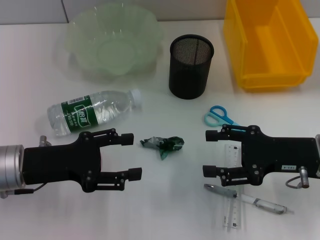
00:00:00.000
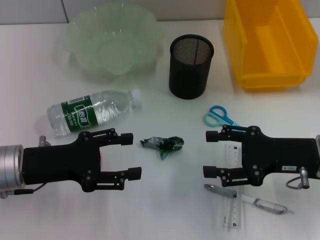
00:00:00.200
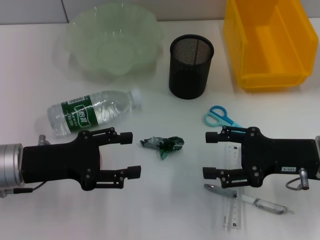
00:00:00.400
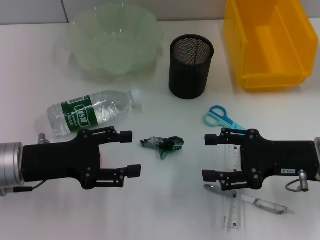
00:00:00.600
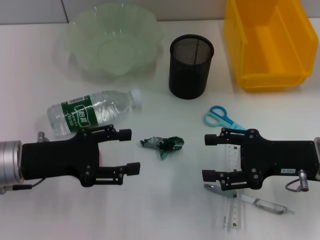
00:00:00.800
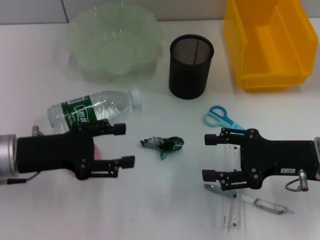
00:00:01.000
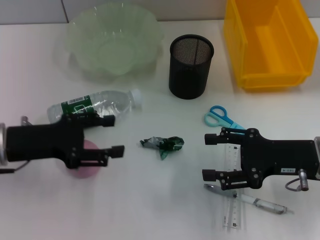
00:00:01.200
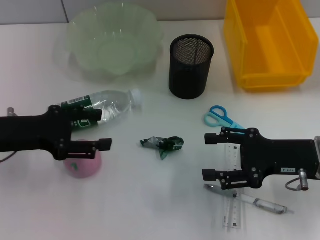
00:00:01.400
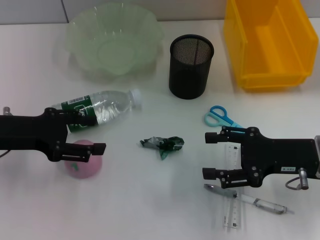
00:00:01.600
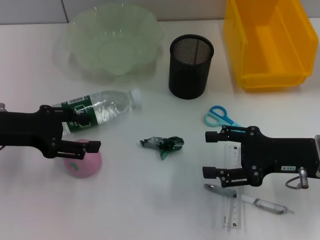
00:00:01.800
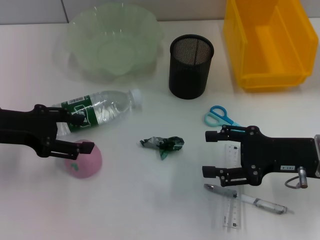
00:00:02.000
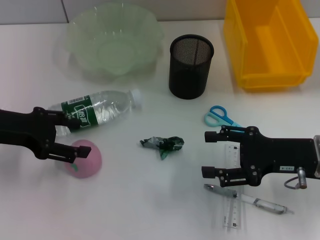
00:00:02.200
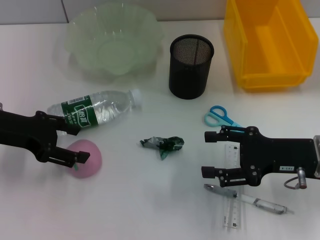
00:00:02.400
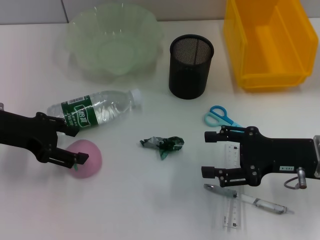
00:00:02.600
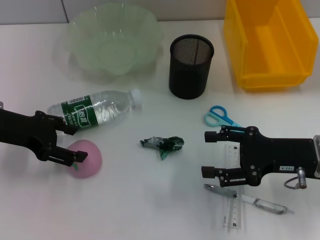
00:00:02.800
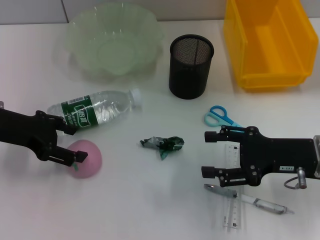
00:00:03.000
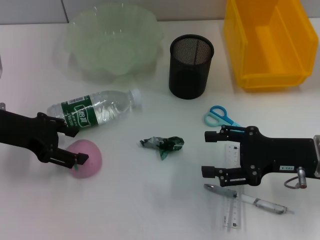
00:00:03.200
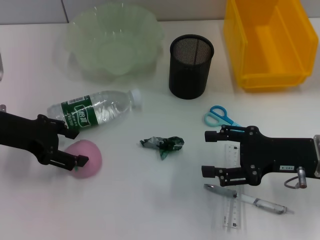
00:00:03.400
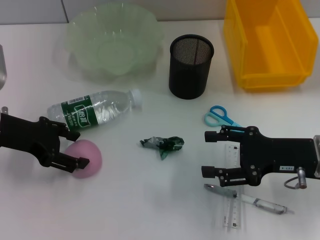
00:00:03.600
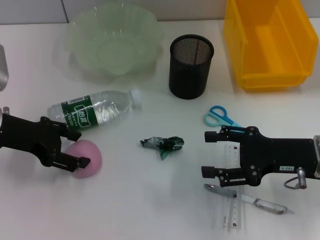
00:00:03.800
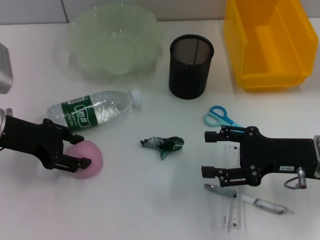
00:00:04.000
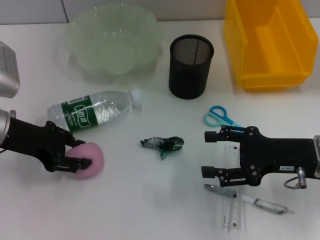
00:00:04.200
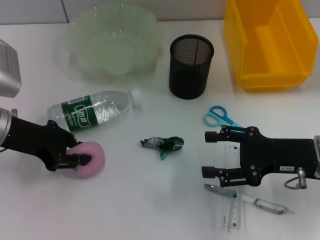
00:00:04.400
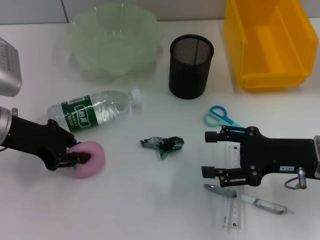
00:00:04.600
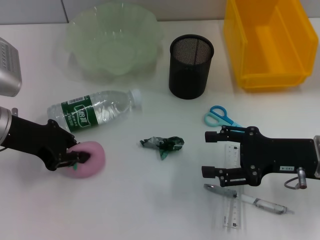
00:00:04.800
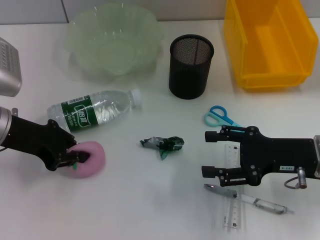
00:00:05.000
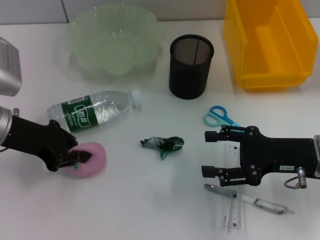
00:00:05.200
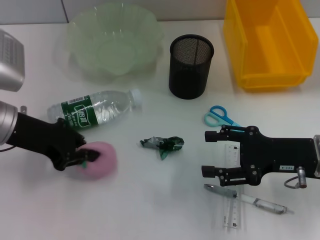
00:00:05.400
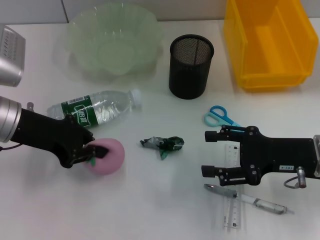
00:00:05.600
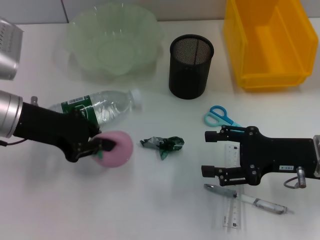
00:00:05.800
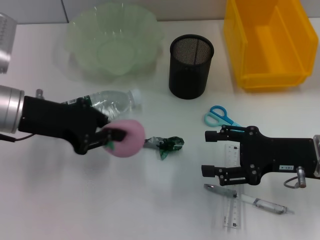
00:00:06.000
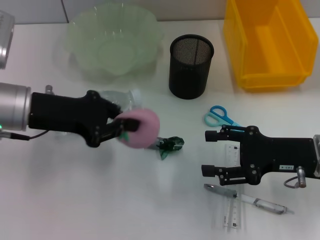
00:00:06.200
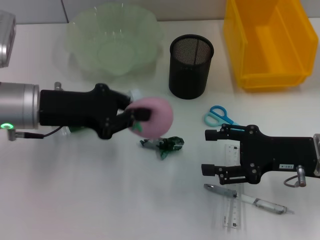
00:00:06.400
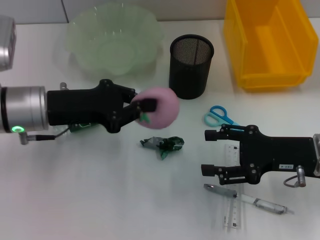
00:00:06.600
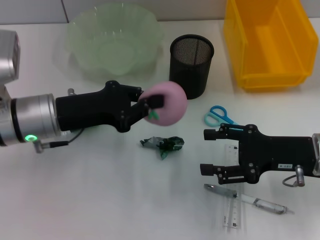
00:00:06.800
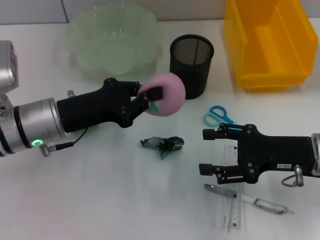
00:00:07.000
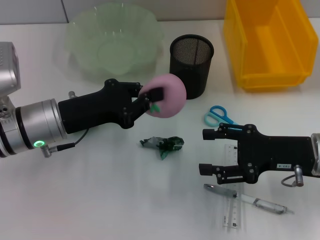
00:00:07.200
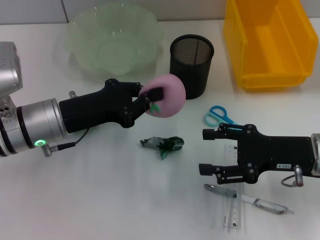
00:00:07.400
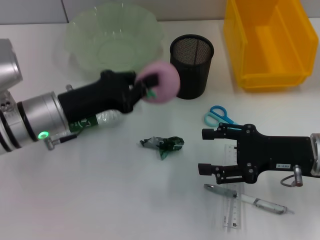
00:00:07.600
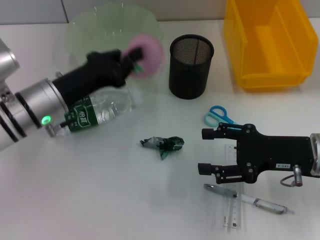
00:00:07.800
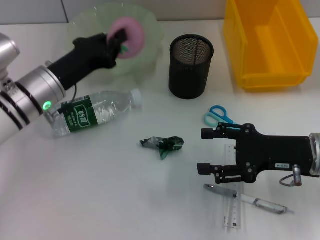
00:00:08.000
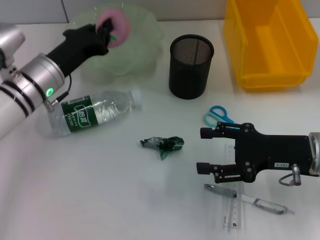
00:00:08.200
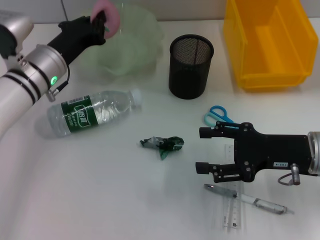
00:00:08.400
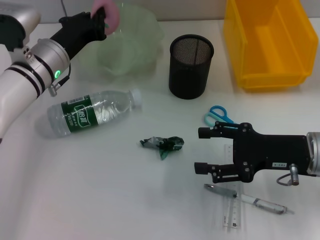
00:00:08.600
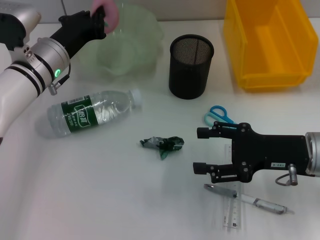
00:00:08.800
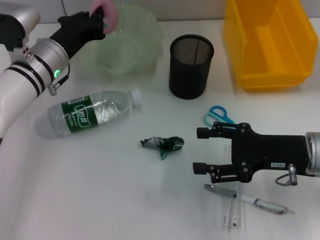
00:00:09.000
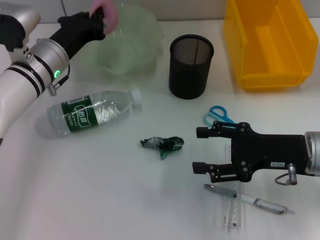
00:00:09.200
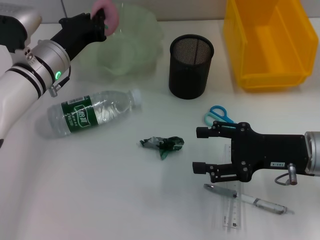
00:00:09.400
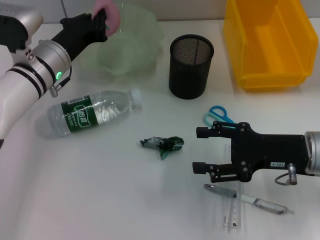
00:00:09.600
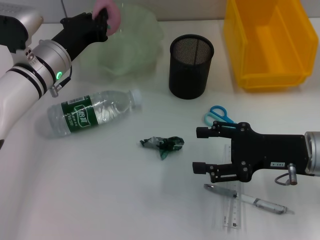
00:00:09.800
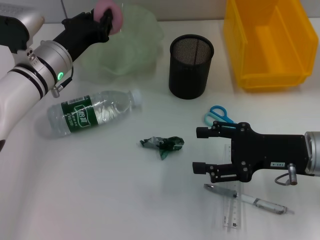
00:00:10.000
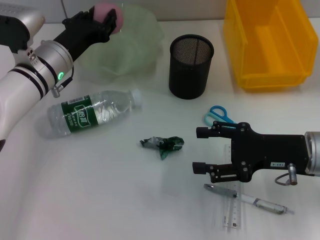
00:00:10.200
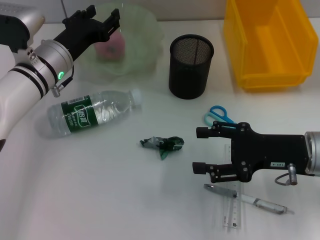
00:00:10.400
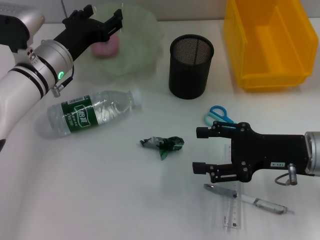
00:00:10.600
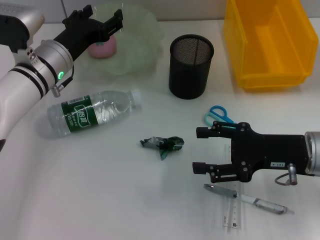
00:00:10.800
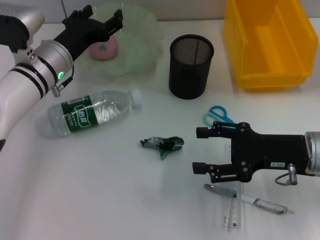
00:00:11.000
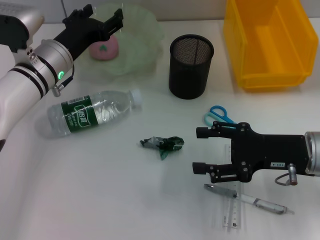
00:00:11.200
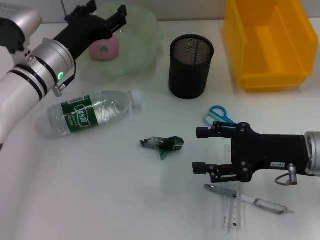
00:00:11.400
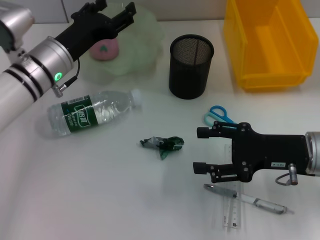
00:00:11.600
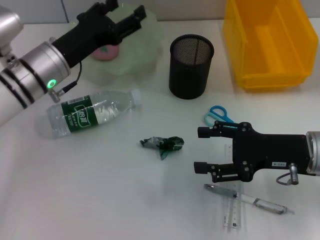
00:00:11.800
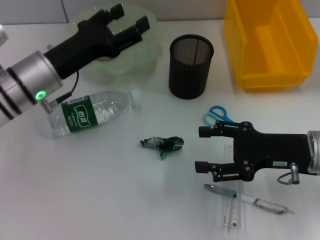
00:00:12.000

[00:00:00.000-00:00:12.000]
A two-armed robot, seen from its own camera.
Step, 00:00:00.000 to 00:00:04.200: Grab the peach with the left hand.
Step, 00:00:04.600 to 00:00:10.400: Place the peach into the fruit bowl with the left hand.
00:00:00.000 to 00:00:01.600: The left gripper changes place by roughly 5 cm.
00:00:03.000 to 00:00:04.400: The left gripper closes its fingers.
00:00:04.400 to 00:00:06.000: The left gripper closes its fingers.
00:00:06.000 to 00:00:07.600: The left gripper heads downward, covering some 5 cm.
00:00:07.600 to 00:00:09.000: The left gripper heads forward, covering roughly 10 cm.
00:00:09.000 to 00:00:10.400: The left gripper opens up.
00:00:10.400 to 00:00:12.000: The left gripper heads backward, covering about 5 cm, and opens.

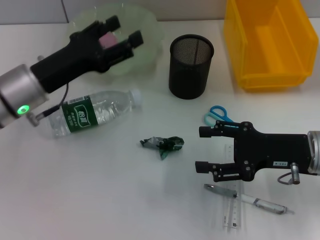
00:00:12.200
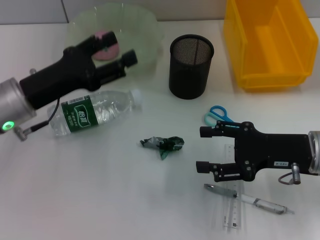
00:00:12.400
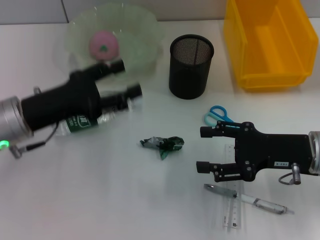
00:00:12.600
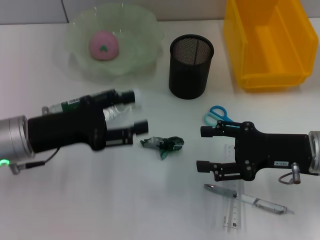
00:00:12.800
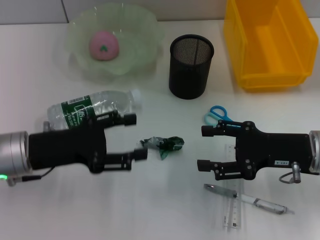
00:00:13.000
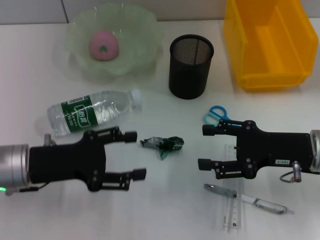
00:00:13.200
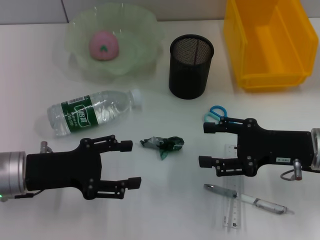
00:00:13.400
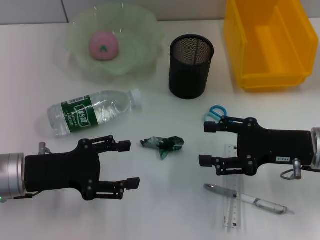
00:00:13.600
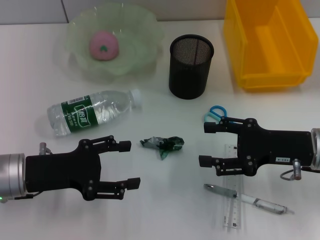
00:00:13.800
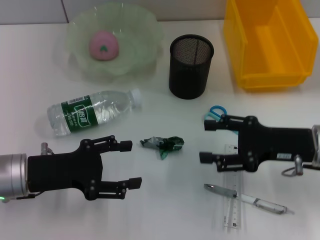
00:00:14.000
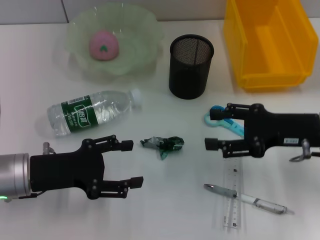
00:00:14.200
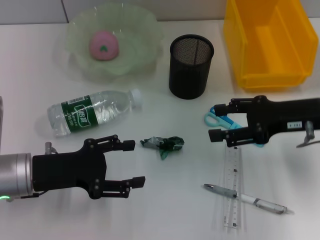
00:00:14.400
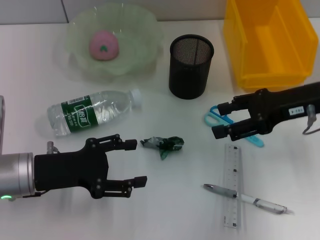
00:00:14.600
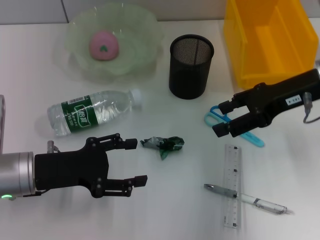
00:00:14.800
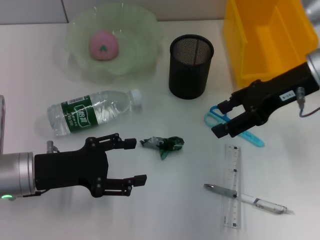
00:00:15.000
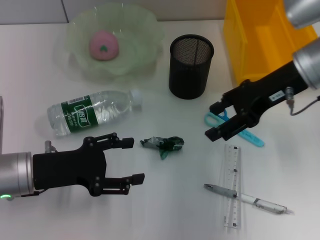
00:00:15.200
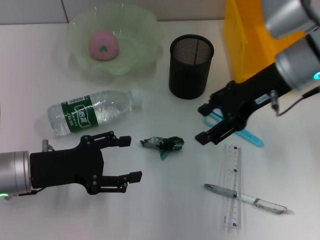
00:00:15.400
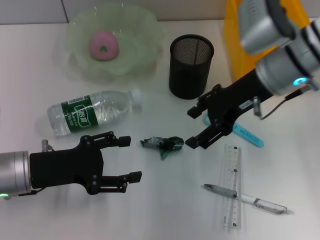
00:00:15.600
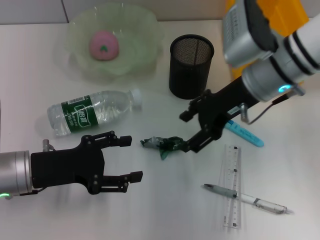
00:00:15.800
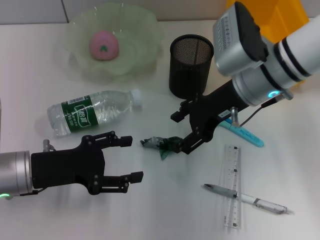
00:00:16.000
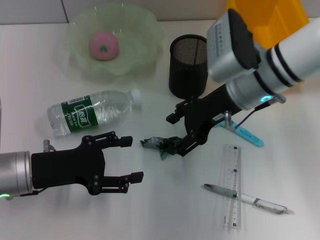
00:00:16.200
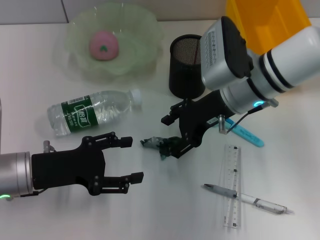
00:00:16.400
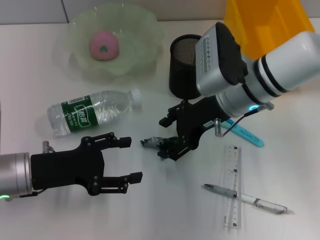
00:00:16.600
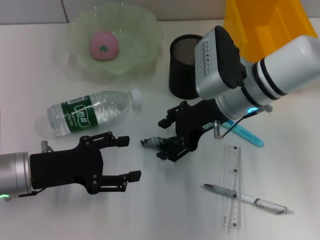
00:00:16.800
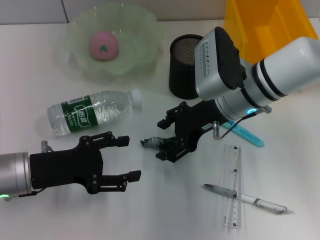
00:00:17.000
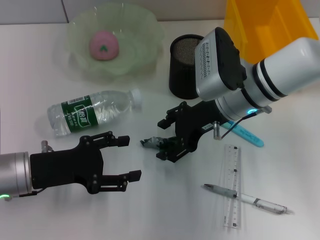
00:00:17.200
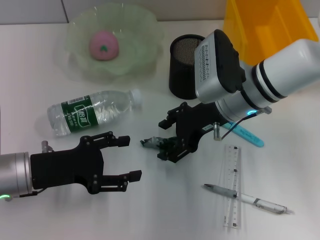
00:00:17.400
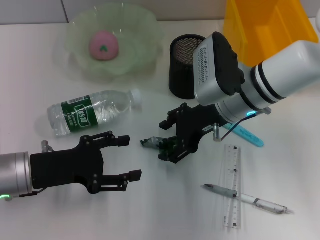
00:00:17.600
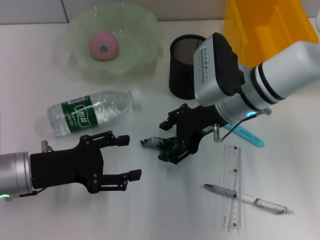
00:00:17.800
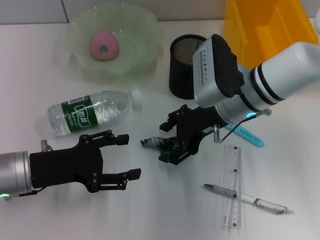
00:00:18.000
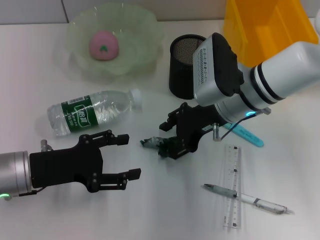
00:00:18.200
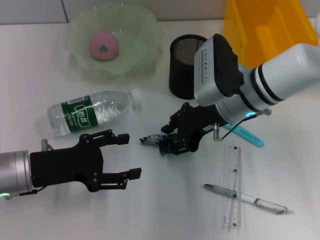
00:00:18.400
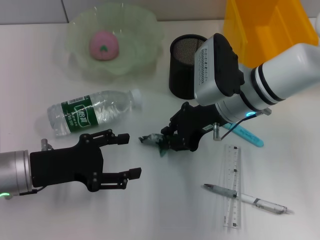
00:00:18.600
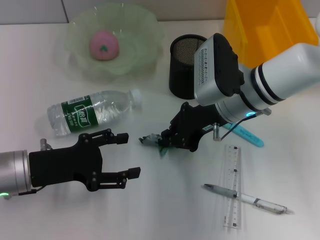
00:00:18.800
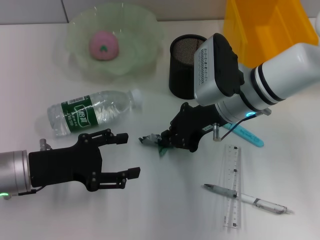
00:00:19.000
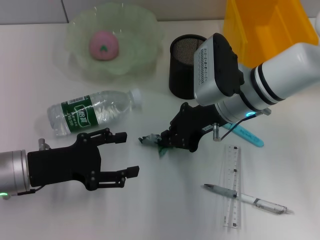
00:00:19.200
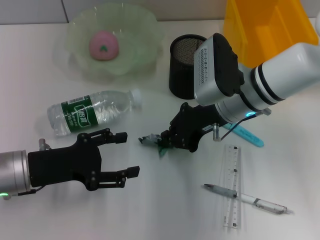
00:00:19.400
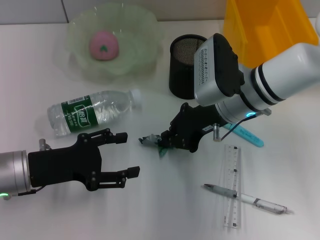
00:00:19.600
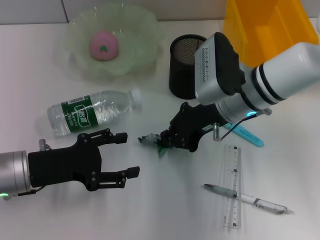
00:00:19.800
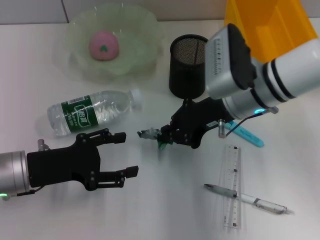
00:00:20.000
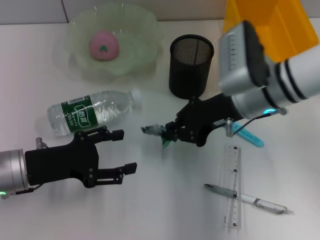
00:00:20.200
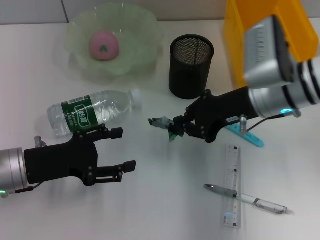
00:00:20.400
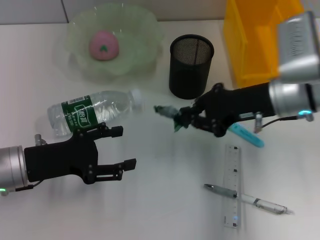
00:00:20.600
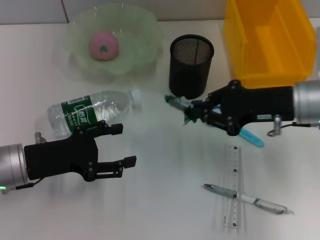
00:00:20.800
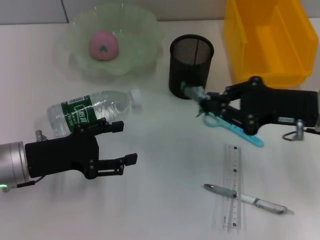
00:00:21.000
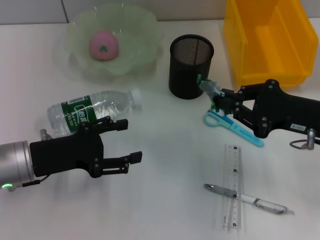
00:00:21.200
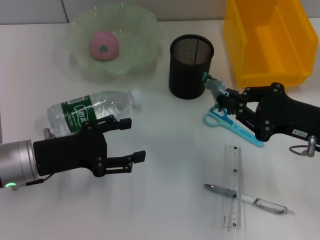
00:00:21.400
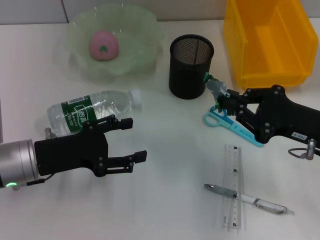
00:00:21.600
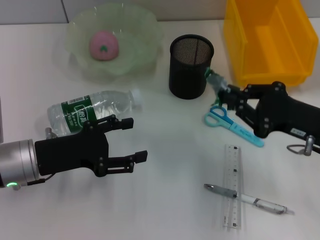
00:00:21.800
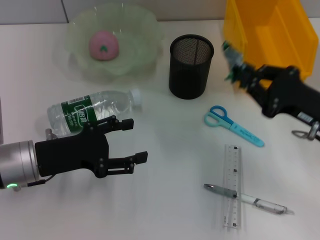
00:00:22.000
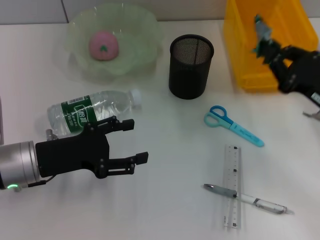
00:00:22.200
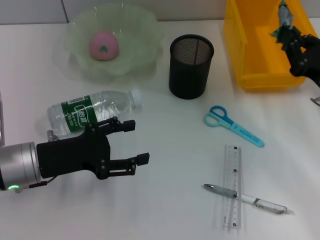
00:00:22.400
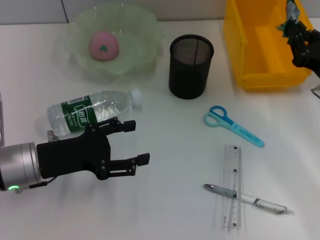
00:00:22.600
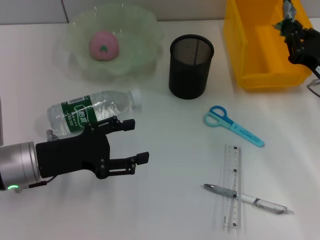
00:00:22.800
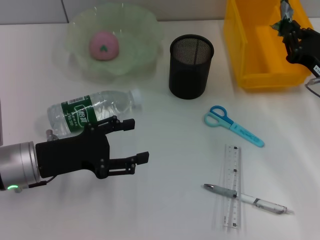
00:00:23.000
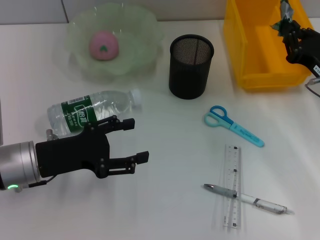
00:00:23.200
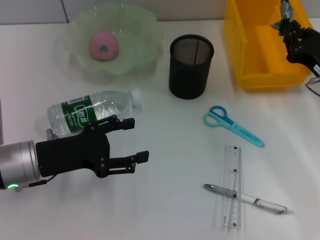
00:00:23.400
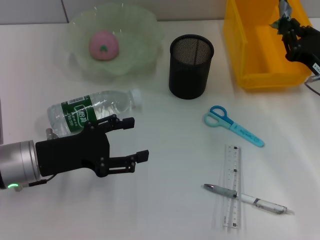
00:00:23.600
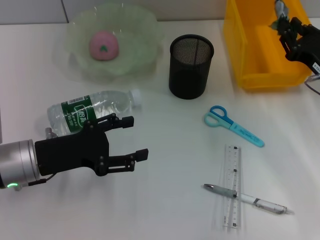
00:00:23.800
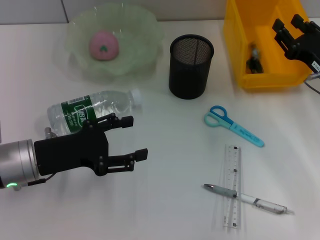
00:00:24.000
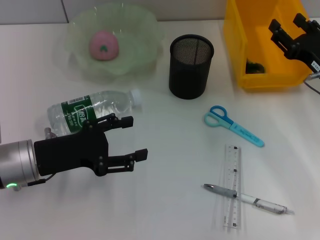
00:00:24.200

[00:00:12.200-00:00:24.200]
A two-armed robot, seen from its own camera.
Step, 00:00:12.200 to 00:00:18.800: Grab the plastic with the right hand.
Step, 00:00:19.000 to 00:00:24.000: Place the plastic into the trash can with the right hand.
00:00:12.200 to 00:00:13.800: The left gripper shifts approximately 10 cm backward.
00:00:13.800 to 00:00:15.200: The right gripper moves upward and forward, some 15 cm.
00:00:15.200 to 00:00:16.600: The right gripper shifts roughly 10 cm to the left and downward.
00:00:16.600 to 00:00:18.200: Both grippers stay put.
00:00:18.200 to 00:00:19.800: The right gripper closes its fingers.
00:00:19.800 to 00:00:21.200: The right gripper heads to the right and backward, covering some 15 cm.
00:00:21.200 to 00:00:22.600: The right gripper changes place by about 5 cm.
00:00:22.600 to 00:00:24.200: The right gripper opens.
